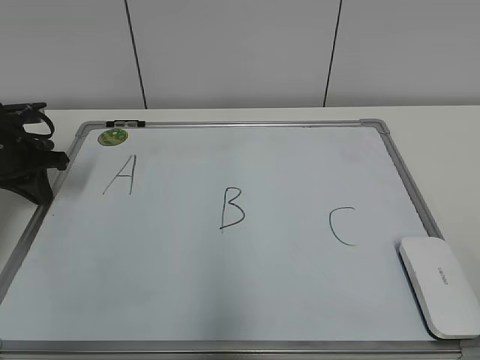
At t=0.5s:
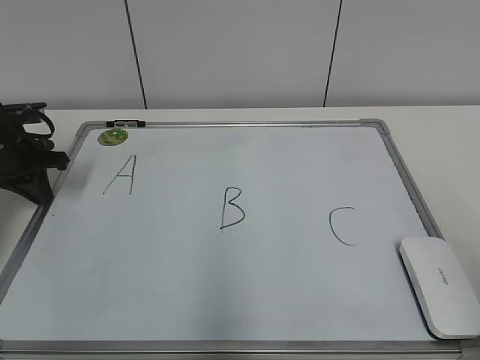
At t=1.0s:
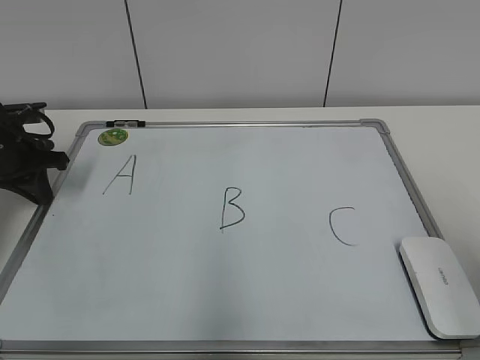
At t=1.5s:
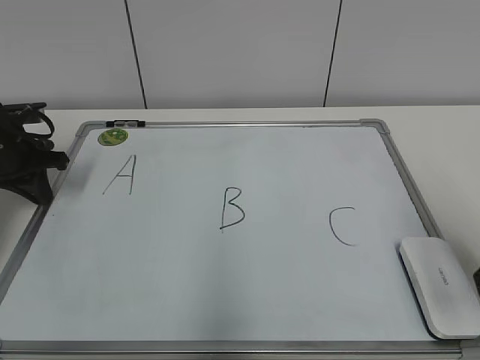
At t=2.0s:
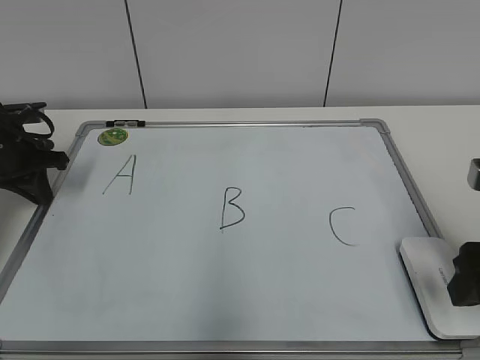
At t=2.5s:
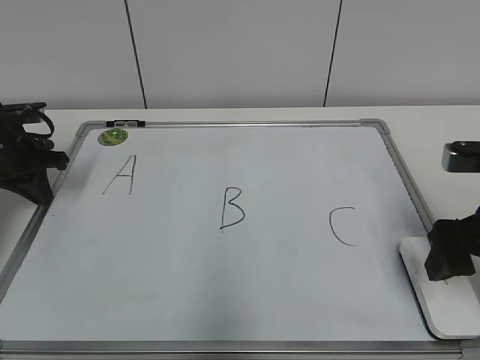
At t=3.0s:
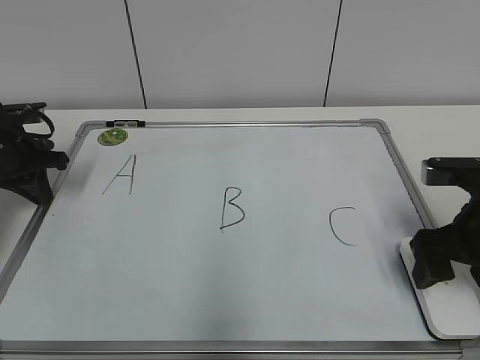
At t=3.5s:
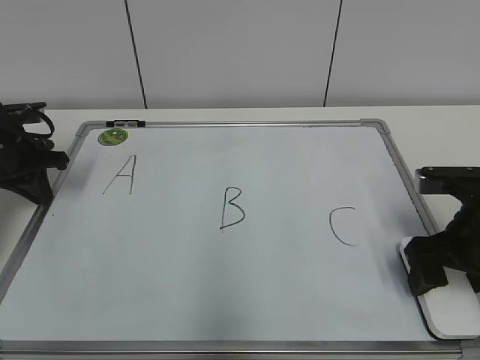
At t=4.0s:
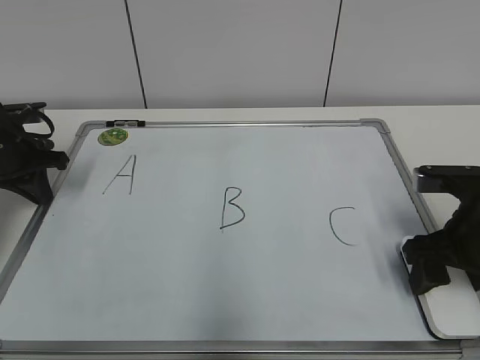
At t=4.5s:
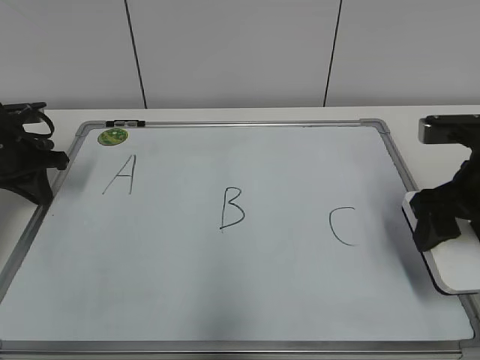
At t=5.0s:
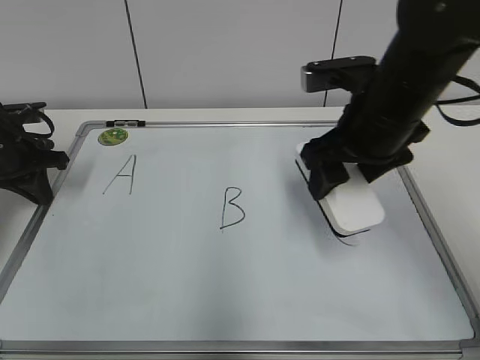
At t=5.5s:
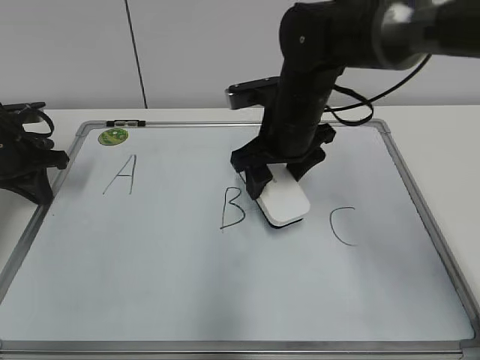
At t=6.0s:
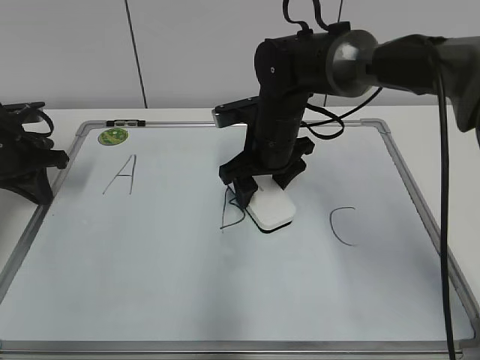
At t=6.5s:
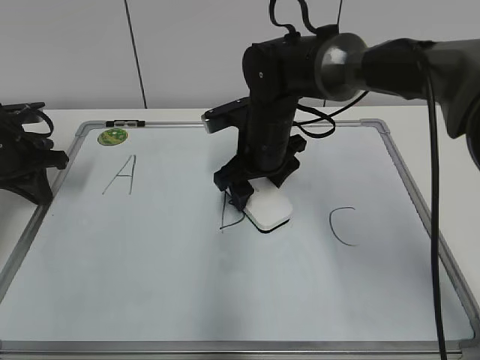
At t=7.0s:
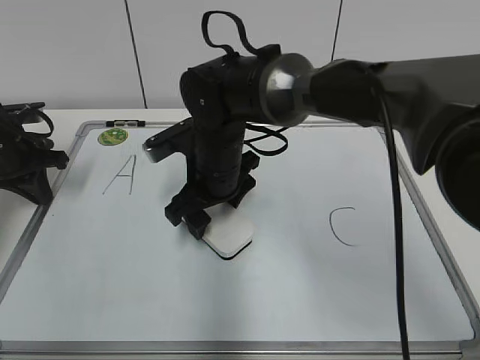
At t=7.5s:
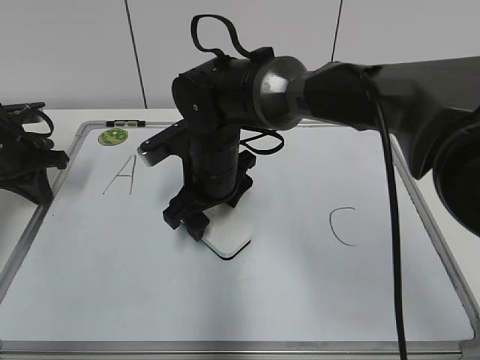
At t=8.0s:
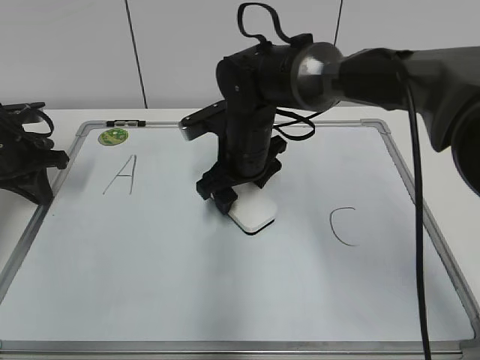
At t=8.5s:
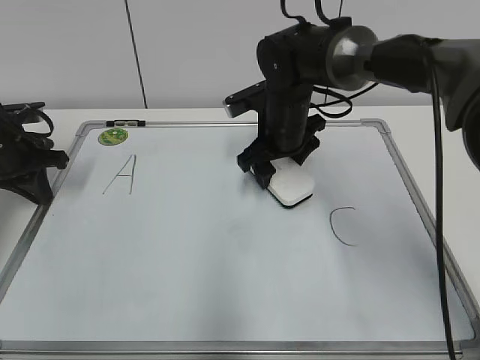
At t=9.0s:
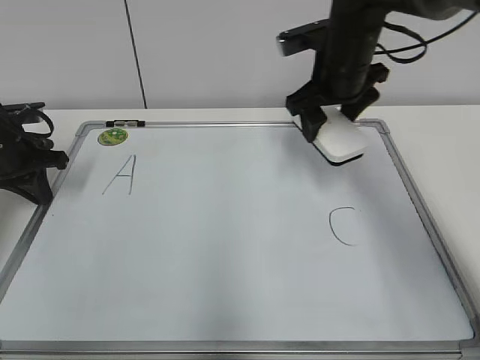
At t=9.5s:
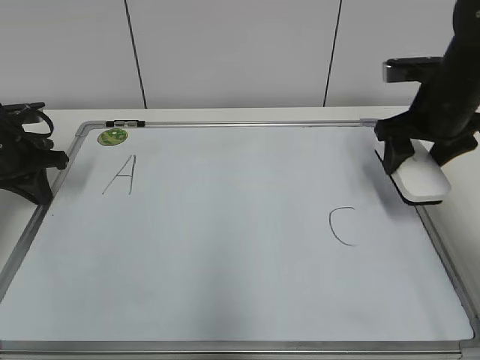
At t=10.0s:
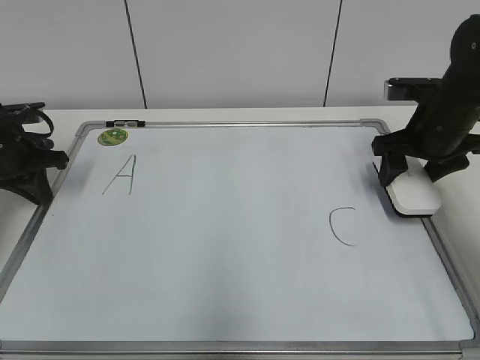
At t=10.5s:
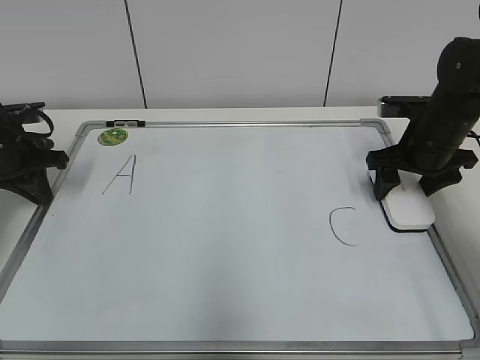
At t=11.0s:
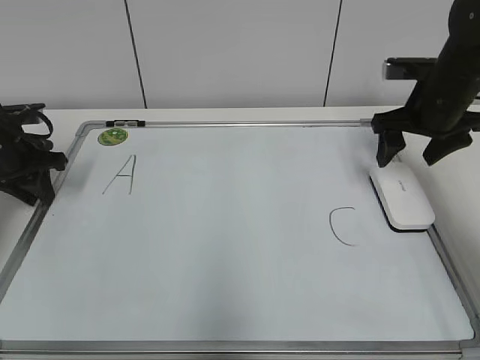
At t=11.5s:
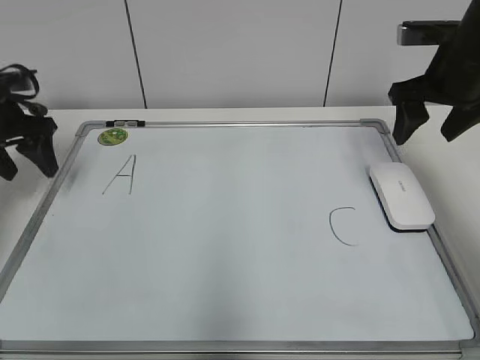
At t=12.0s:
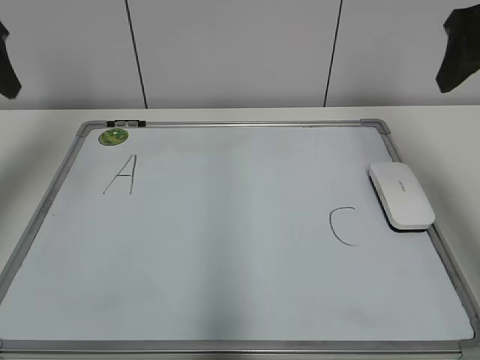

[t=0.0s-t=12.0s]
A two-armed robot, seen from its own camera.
Task of the whole recording: pick up the eraser on the blackboard and erase the letter "B".
Step, t=0.0s to t=3.5s: Grab the eraser with your right hand.
Step, t=4.0s to t=8.0s: Erase the letter B with your right hand.
t=0.0s to t=2.0s: The right gripper travels forward by approximately 20 cm.
t=2.0s to t=4.0s: The right gripper shifts about 10 cm forward and downward, and closes up.
t=4.0s to t=6.0s: The right gripper is displaced to the left and forward by roughly 25 cm.
t=8.0s to t=10.0s: The right gripper heads to the right, covering about 25 cm.
t=10.0s to t=12.0s: The right gripper goes approximately 20 cm upward and backward, and opens its fingers. Meanwhile the left gripper is displaced upward by some 20 cm, and opens its fingers.

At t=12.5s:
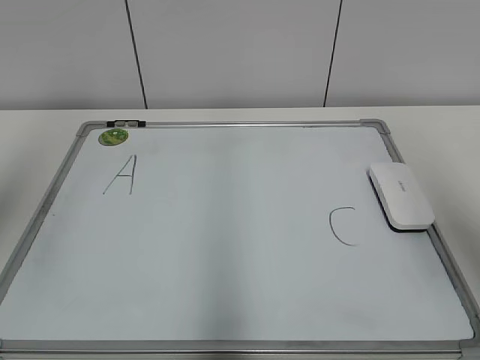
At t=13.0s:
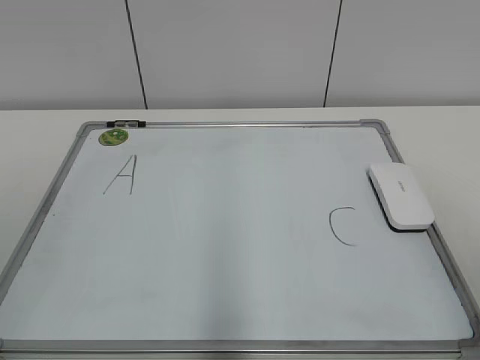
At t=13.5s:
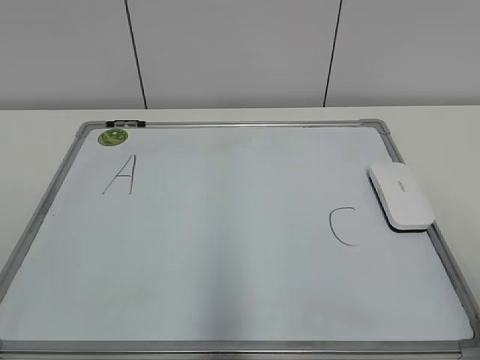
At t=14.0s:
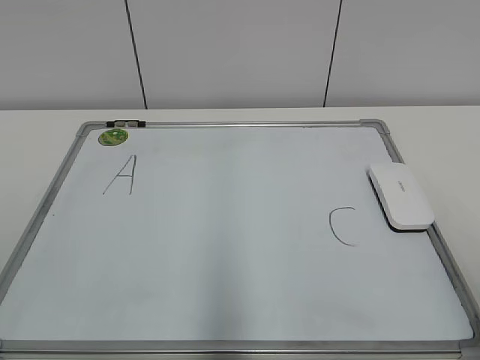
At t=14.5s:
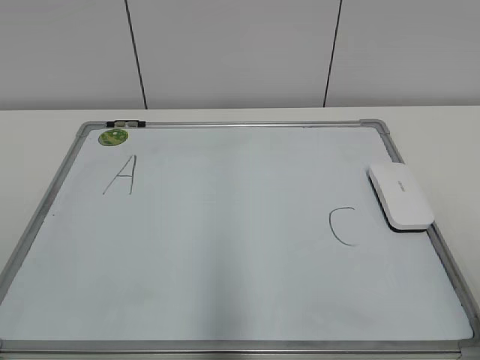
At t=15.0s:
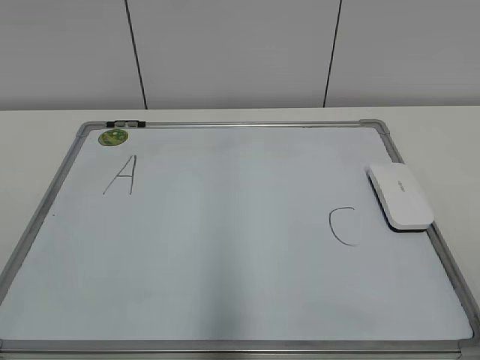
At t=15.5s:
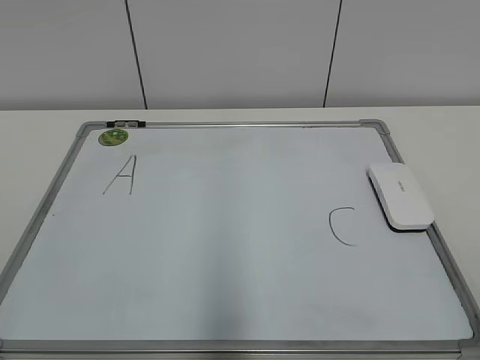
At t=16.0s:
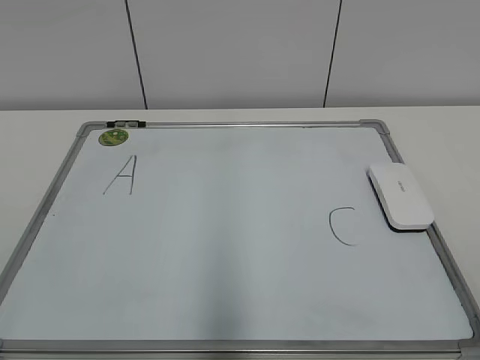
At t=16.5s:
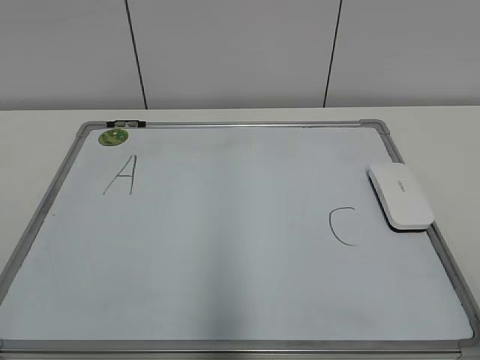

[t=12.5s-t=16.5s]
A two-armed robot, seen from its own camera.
Task of the whole recording: pick up the eraser on the blackboard and erase the letter "B".
t=12.5s to t=14.5s: Both grippers travel together backward and downward, roughly 20 cm.
